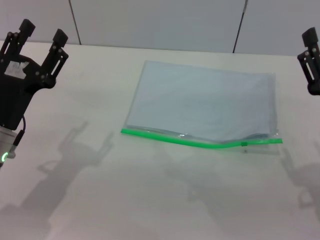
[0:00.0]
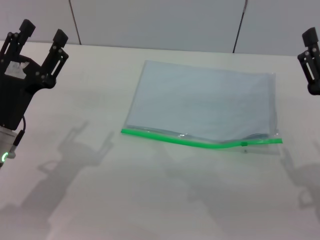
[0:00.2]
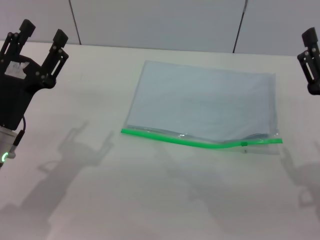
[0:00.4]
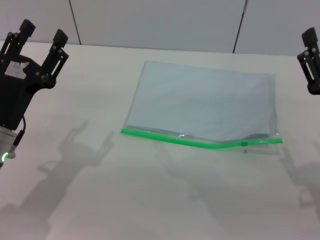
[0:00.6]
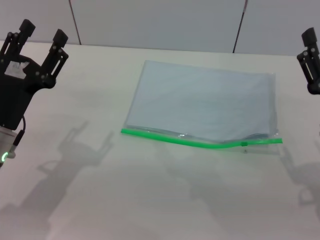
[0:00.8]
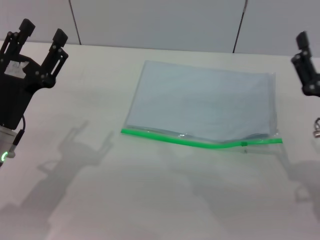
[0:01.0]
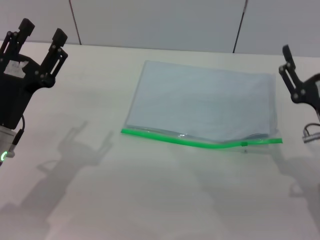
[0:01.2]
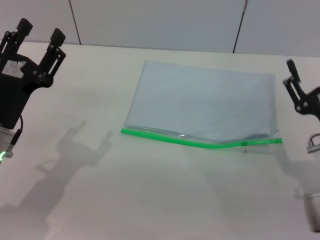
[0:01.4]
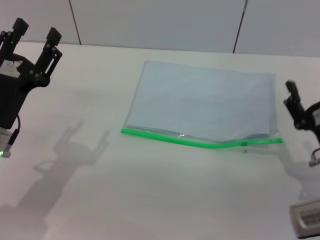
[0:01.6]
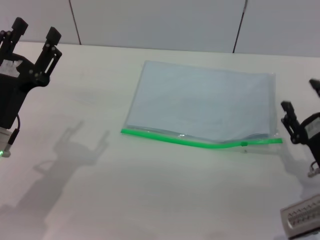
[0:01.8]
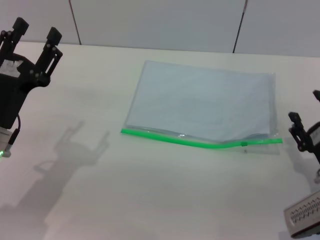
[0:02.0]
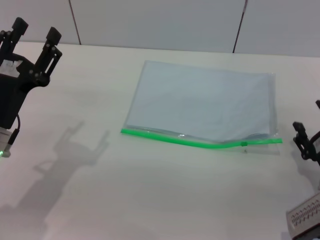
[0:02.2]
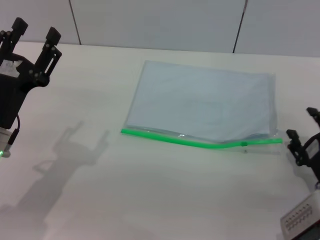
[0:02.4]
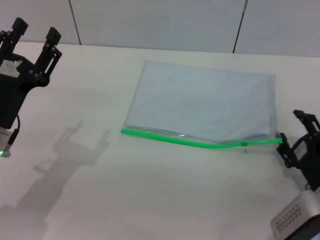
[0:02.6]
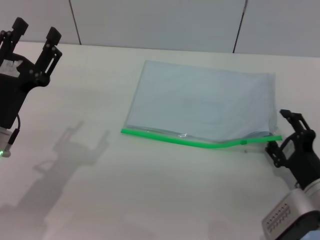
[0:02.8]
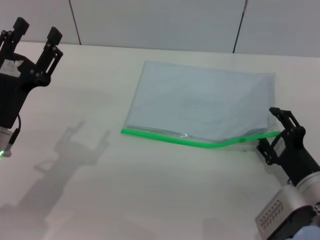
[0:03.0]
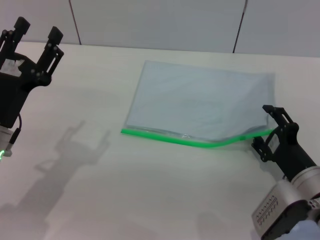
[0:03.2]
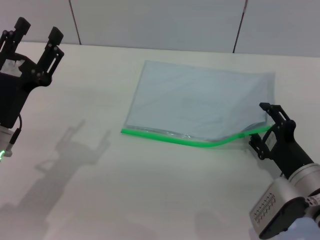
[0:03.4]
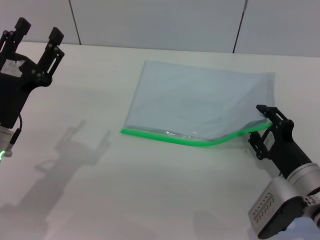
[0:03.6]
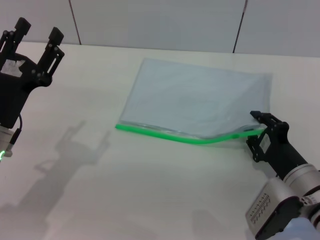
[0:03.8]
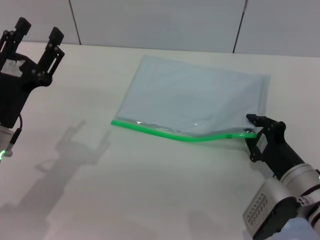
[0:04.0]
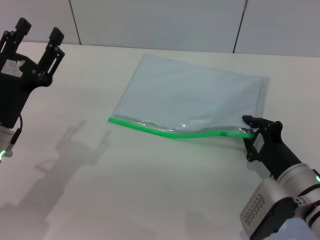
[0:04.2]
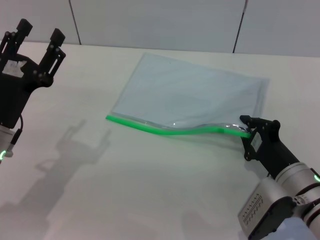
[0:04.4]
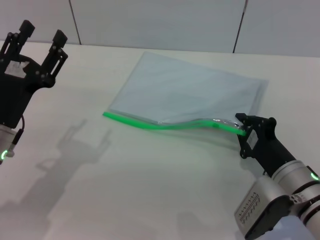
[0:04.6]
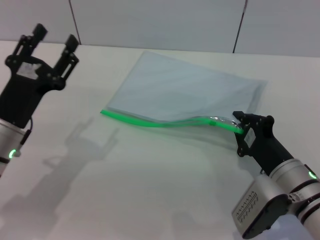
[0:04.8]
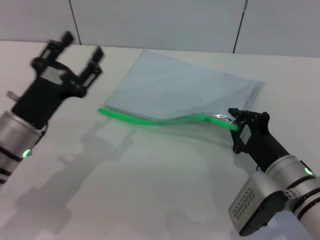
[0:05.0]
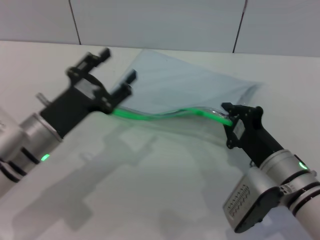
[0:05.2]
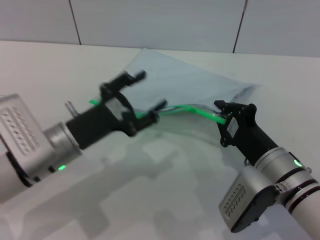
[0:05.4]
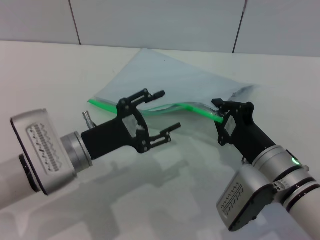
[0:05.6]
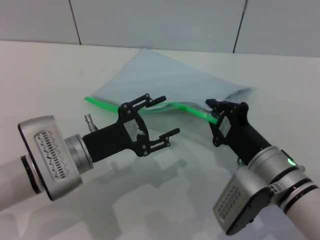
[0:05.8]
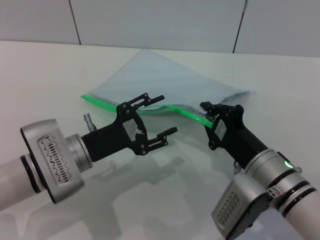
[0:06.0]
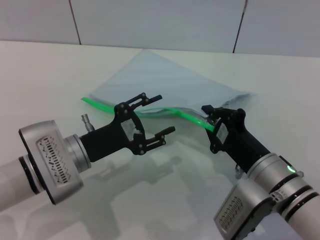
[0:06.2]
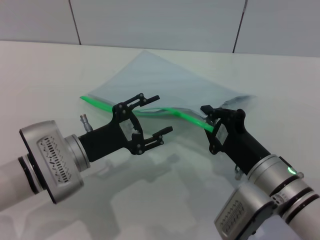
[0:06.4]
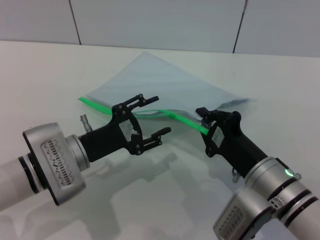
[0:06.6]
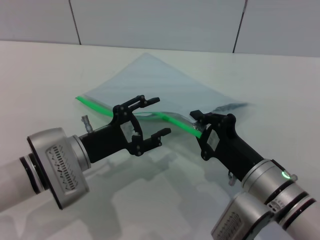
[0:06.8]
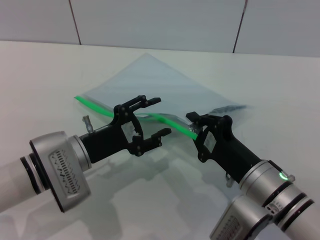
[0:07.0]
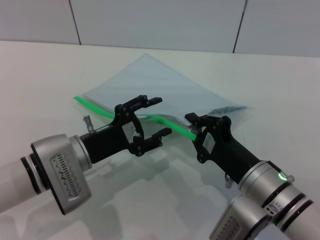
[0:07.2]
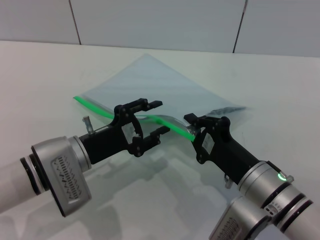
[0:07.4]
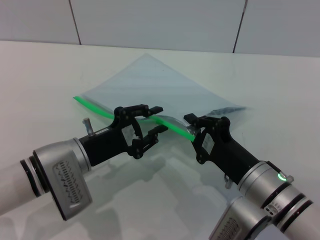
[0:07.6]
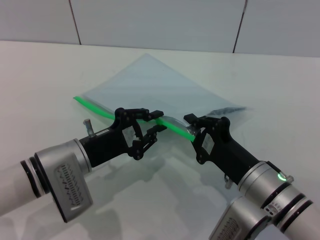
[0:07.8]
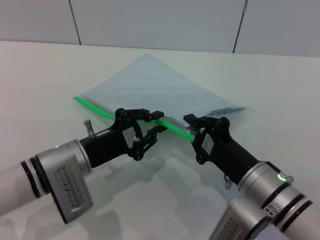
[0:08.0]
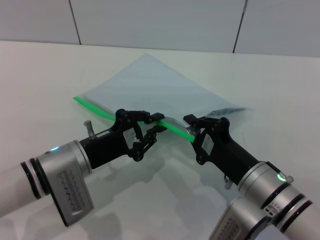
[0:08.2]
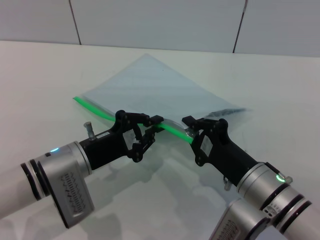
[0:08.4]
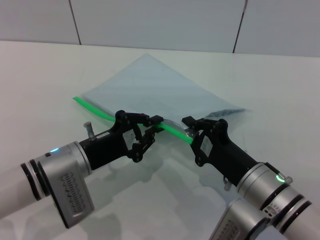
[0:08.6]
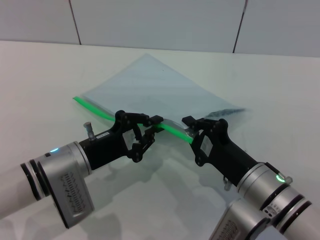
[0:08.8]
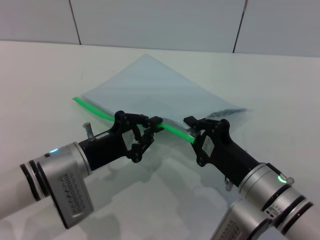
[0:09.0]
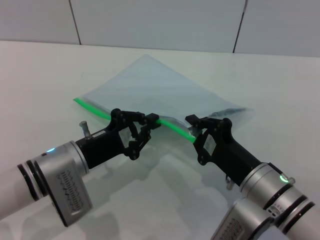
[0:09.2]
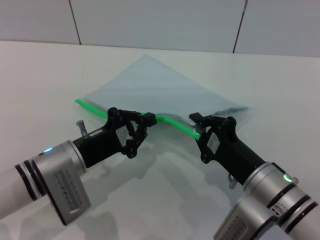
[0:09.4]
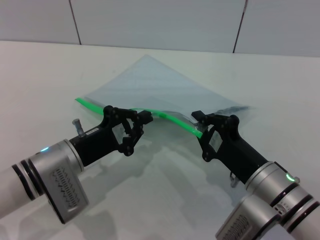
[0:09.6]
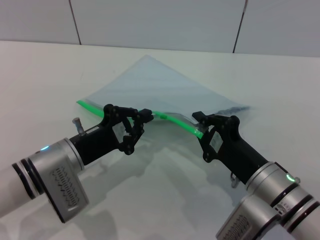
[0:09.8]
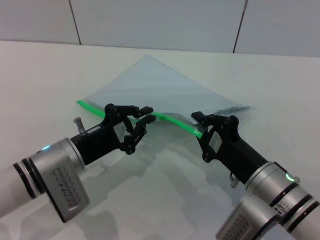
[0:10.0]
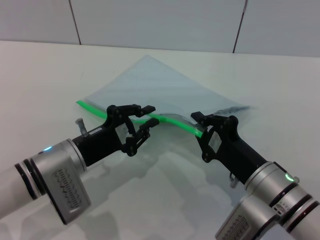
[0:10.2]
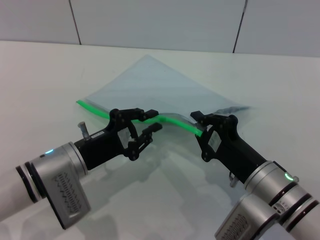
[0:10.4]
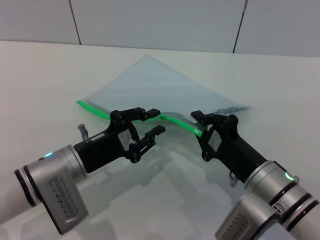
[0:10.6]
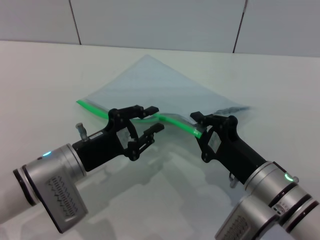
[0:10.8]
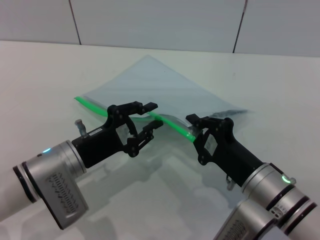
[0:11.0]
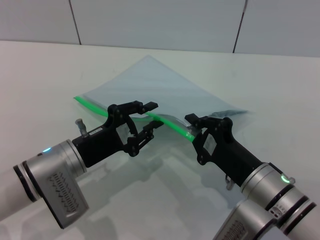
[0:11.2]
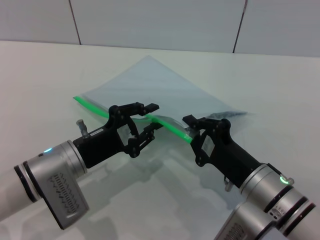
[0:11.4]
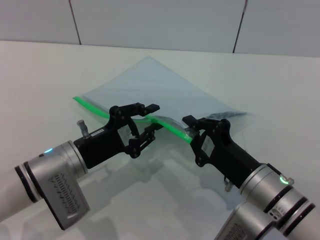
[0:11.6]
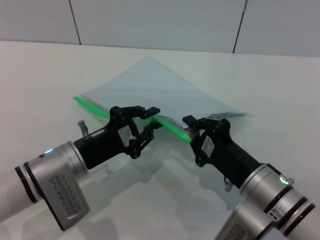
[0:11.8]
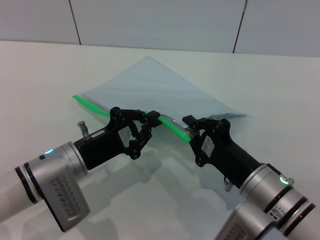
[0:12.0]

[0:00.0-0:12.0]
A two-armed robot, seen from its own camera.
Step, 0:00.0 to 0:05.2: Pick up the transparent plastic bag with the right gripper.
0:03.0 to 0:04.4: The right gripper closes its fingers.
0:04.4 to 0:06.0: The left gripper heads to the right, covering roughly 5 cm; the right gripper ends up some 5 cm from where it was.
0:07.6 to 0:09.0: The left gripper closes.
0:09.0 to 0:12.0: The two grippers keep their place.

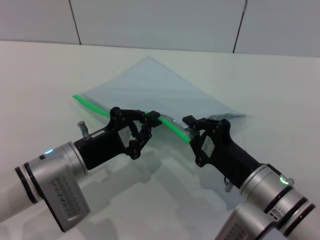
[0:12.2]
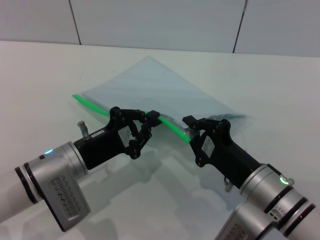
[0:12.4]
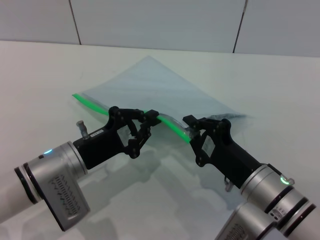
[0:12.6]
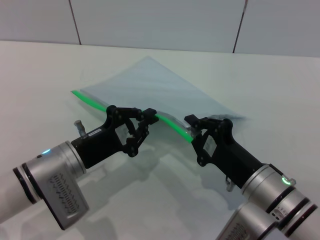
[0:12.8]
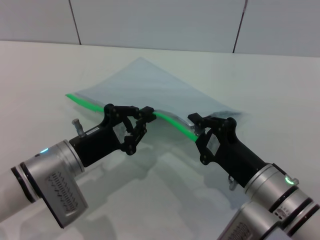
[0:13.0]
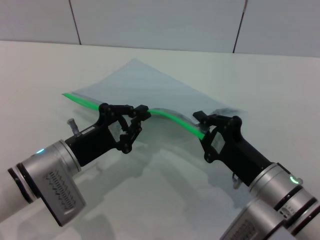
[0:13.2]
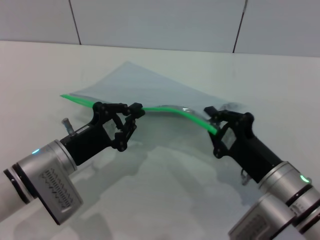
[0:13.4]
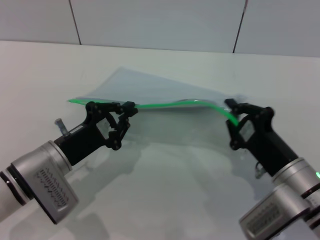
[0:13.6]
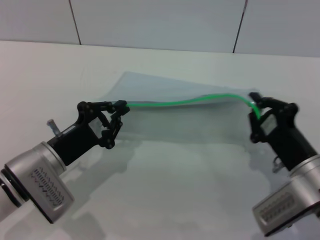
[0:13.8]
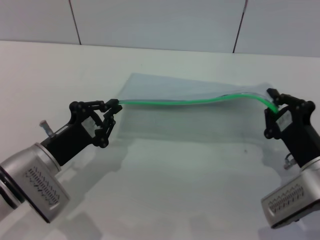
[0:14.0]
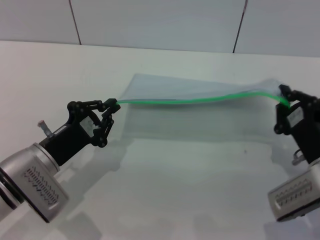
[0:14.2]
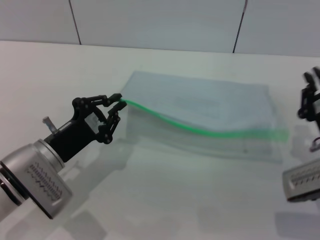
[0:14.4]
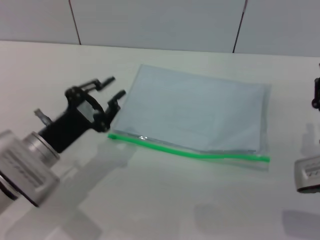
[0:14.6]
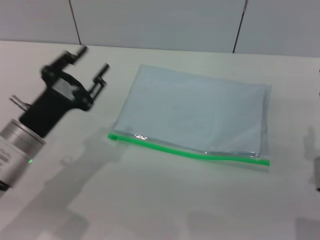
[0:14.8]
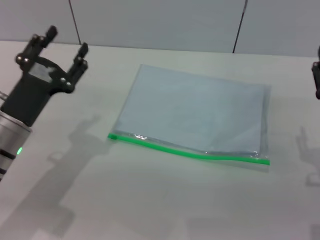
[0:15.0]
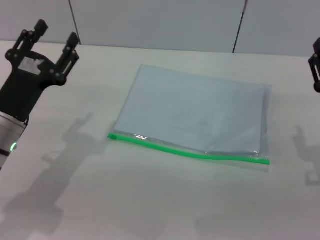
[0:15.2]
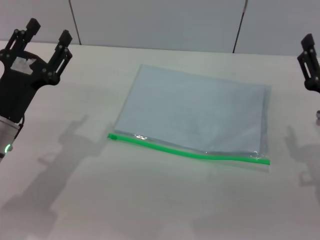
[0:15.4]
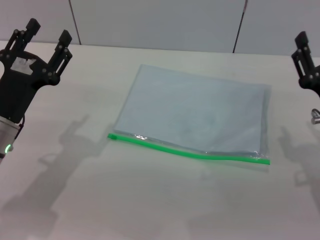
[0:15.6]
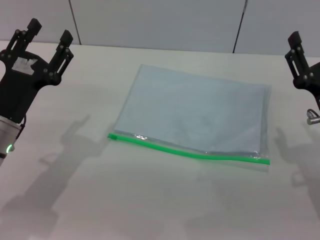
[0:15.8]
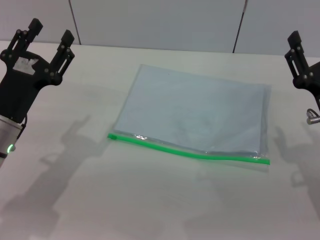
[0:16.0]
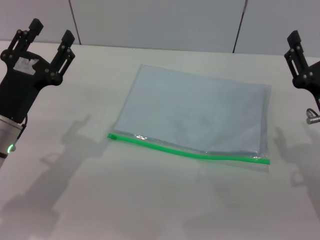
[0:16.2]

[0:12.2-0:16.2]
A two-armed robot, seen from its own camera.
Step, 0:12.2 to 0:14.2: Pulling up the zipper on the transparent plastic bag with the right gripper to close it.
0:13.6 to 0:14.8: The right gripper travels to the right by roughly 5 cm, and opens its fingers.
0:14.8 to 0:16.2: The left gripper opens. The right gripper opens its fingers.
